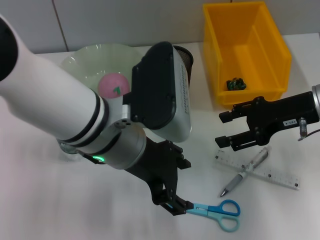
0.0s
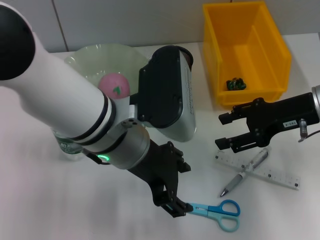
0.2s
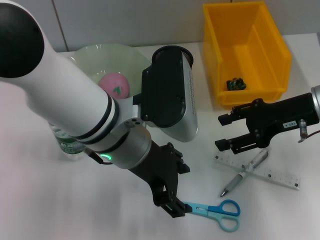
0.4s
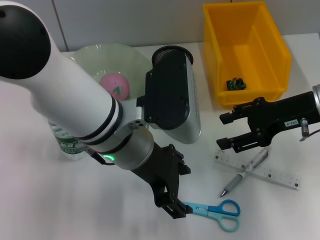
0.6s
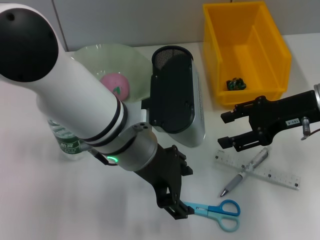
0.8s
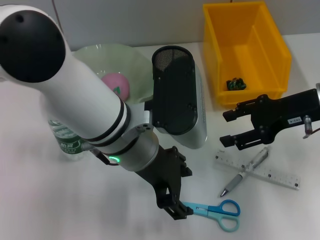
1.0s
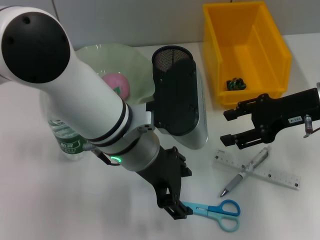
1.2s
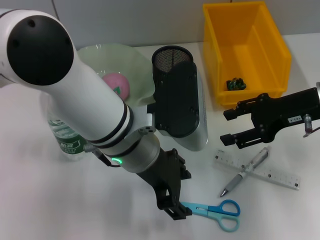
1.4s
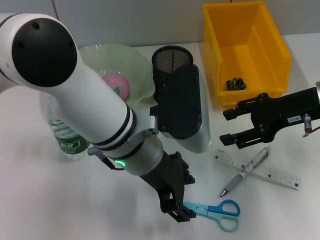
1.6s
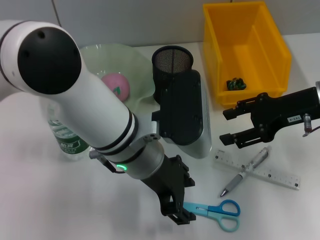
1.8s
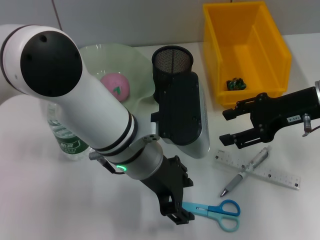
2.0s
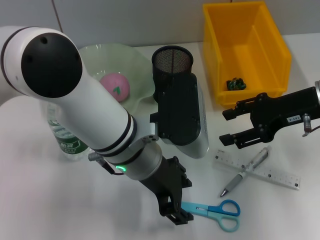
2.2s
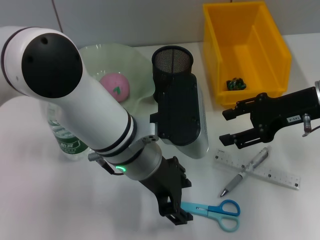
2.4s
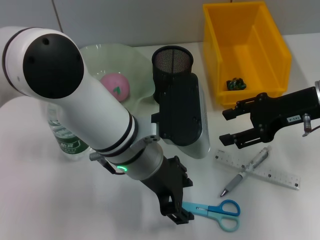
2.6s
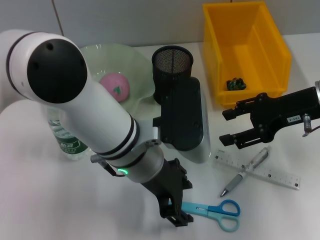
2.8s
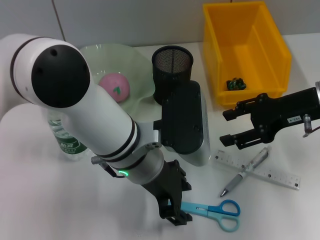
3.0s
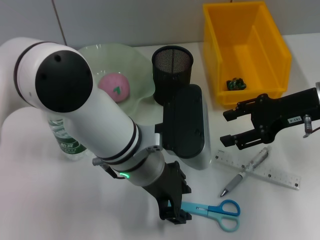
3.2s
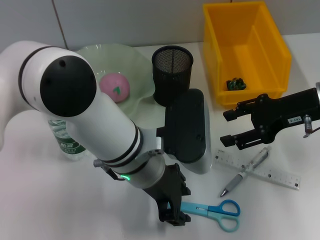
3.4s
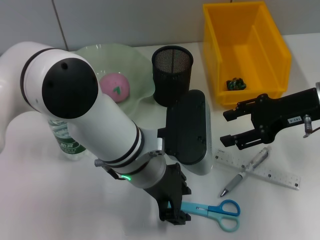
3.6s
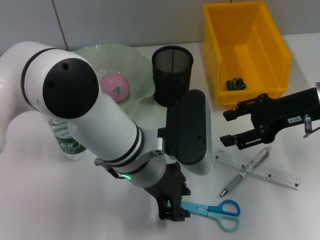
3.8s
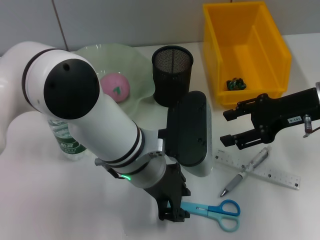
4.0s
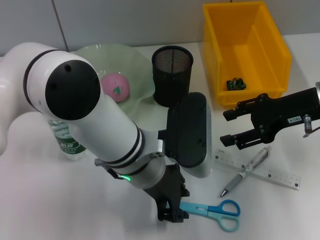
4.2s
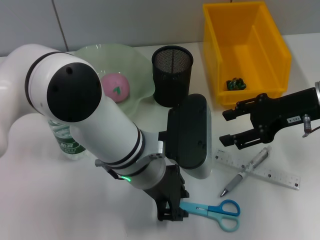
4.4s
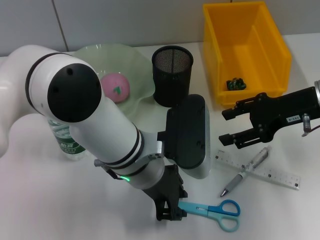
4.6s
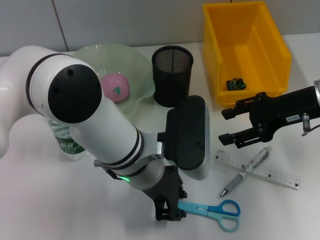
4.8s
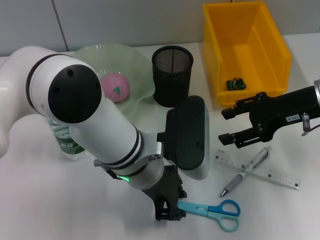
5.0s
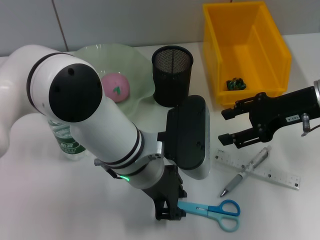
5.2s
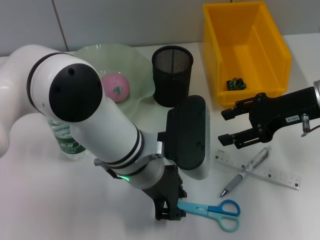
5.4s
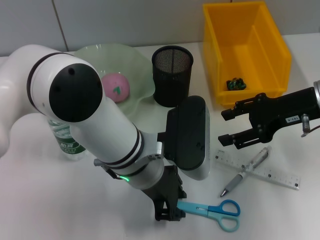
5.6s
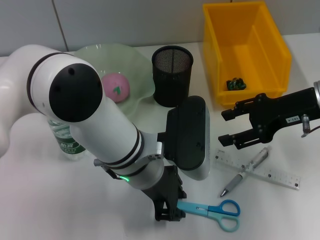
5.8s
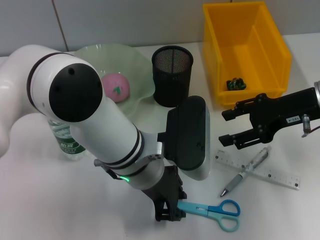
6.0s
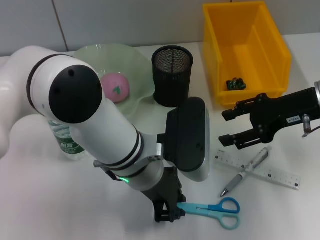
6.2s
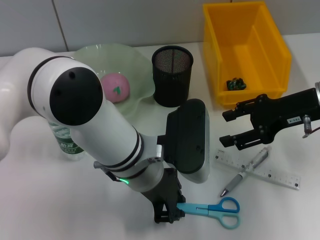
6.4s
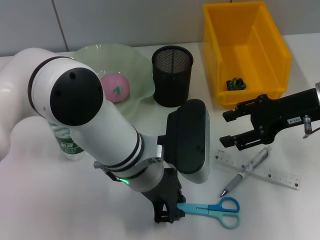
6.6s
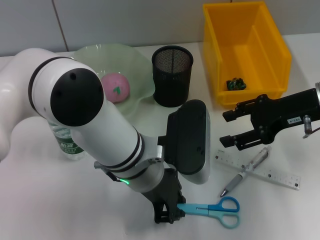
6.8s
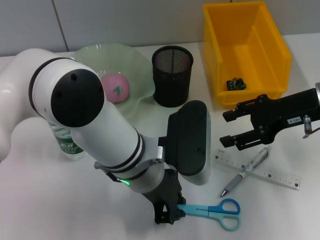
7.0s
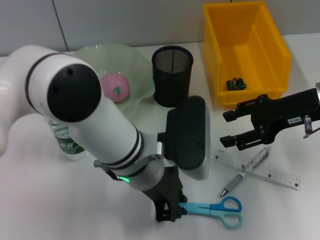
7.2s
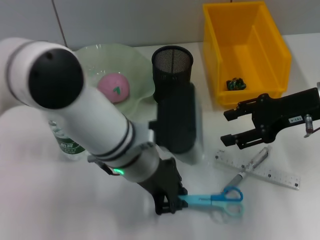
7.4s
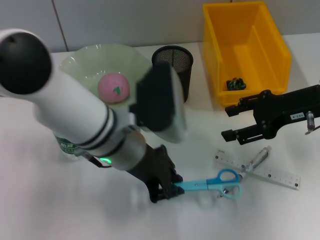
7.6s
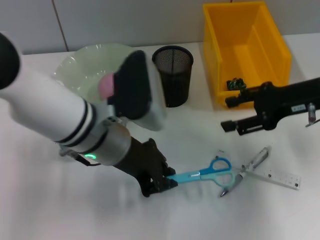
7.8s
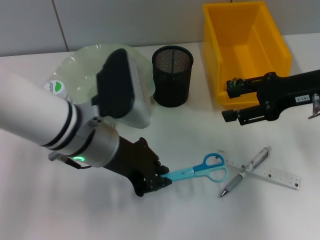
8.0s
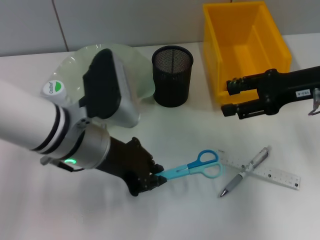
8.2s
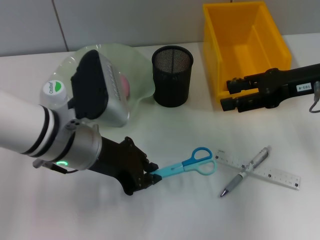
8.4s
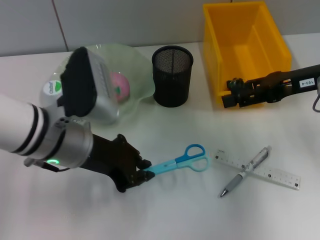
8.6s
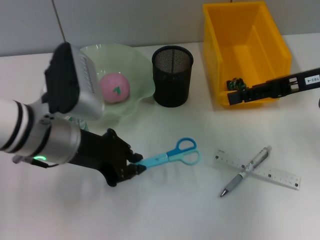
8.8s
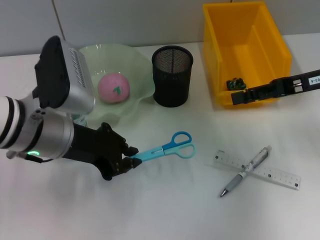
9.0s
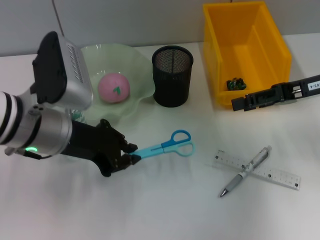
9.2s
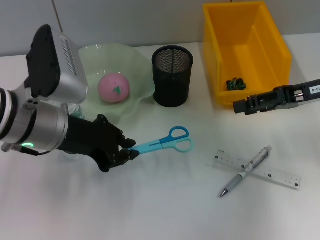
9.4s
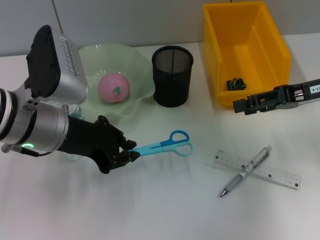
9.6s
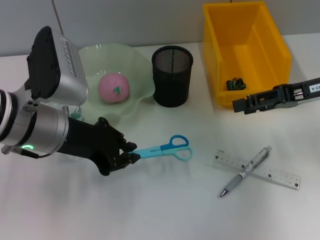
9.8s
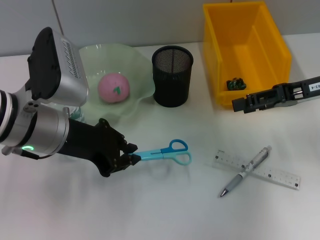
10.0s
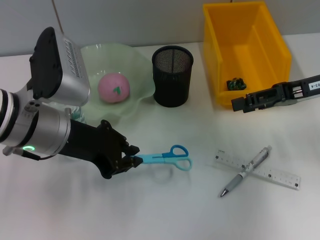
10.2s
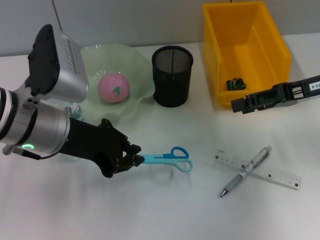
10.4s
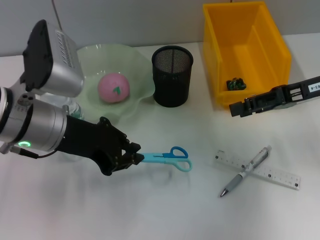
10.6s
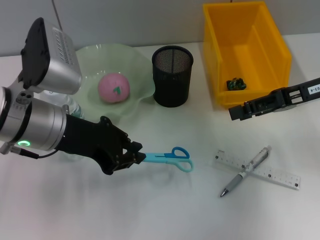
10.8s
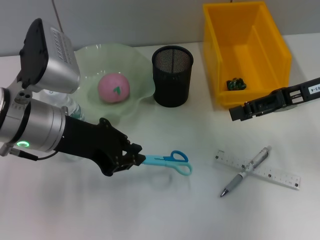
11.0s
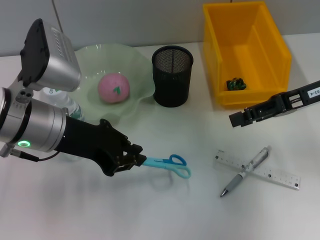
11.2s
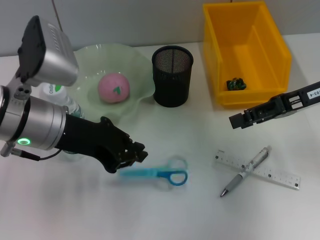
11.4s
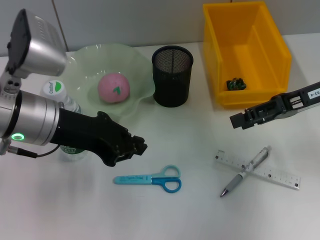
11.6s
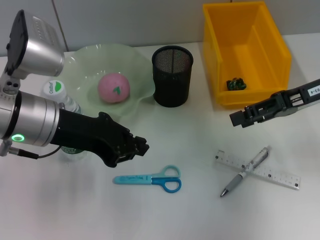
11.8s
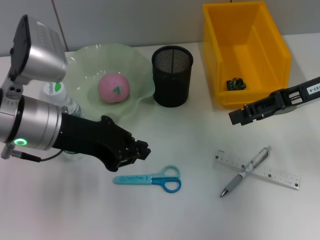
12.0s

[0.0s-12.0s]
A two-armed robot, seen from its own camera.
1.6s to 3.0s: The grippers make only small movements.
3.0s to 4.4s: Both grippers stay about where they are.
4.4s to 6.0s: Neither gripper changes place.
7.6s to 9.0s: The left gripper shifts some 10 cm to the left.
9.0s to 12.0s: The grippers stay close to where they were, moving slightly.

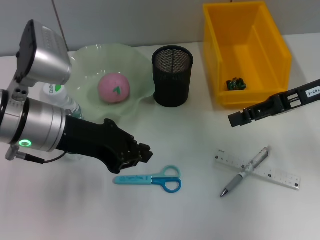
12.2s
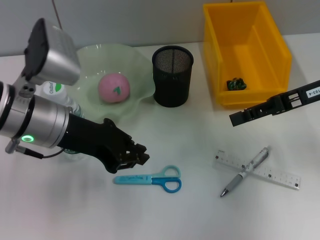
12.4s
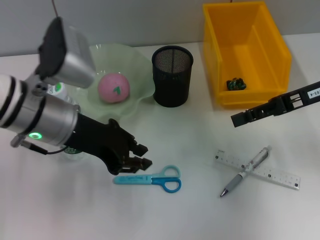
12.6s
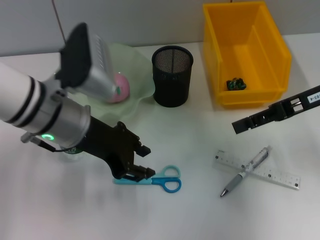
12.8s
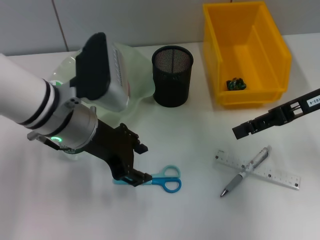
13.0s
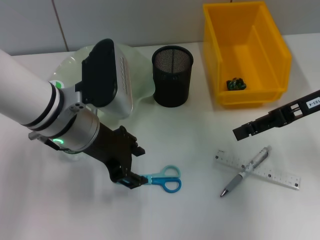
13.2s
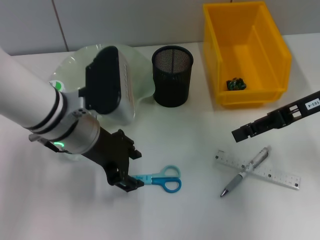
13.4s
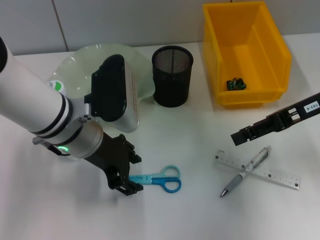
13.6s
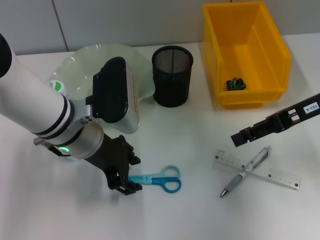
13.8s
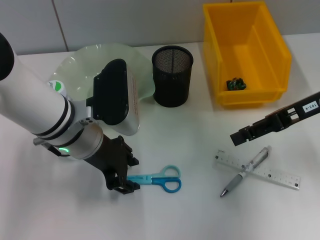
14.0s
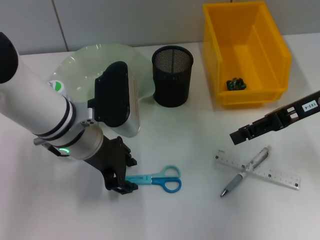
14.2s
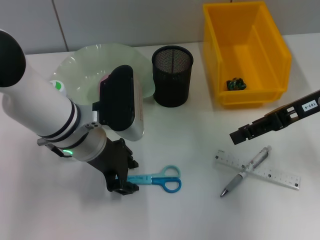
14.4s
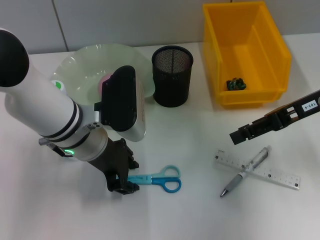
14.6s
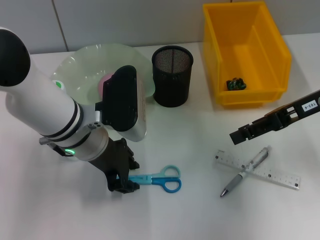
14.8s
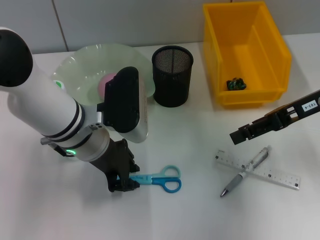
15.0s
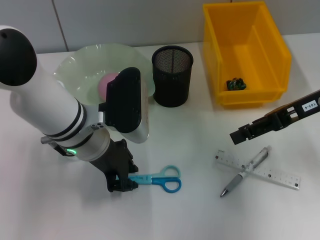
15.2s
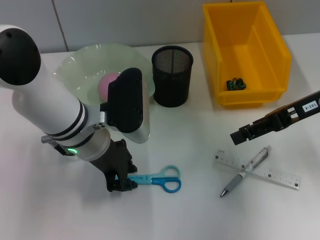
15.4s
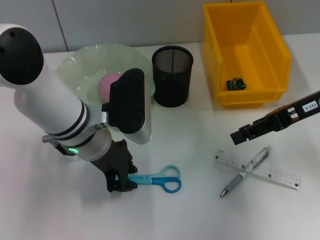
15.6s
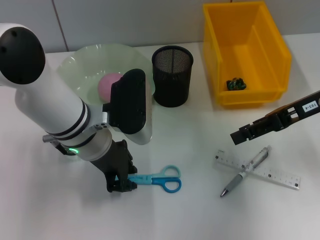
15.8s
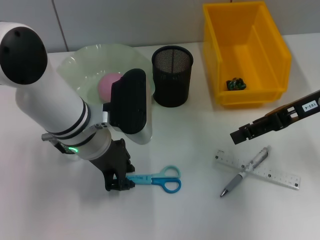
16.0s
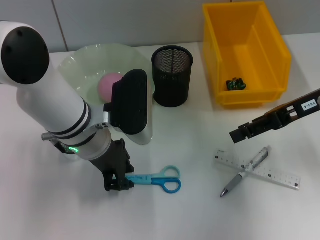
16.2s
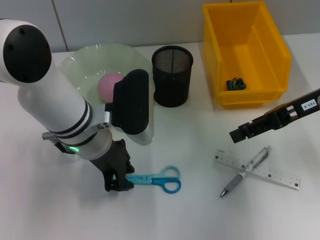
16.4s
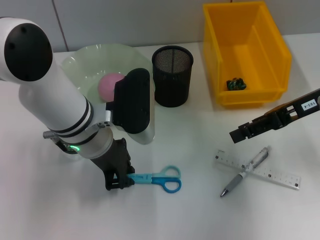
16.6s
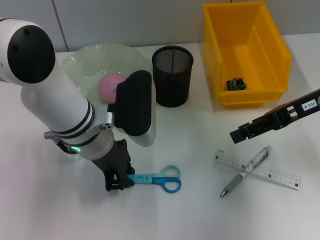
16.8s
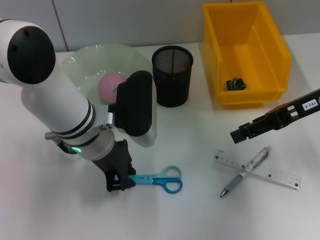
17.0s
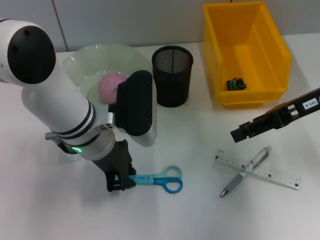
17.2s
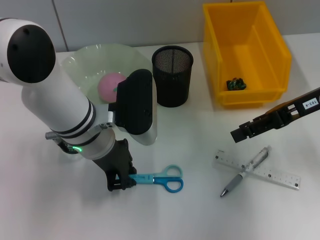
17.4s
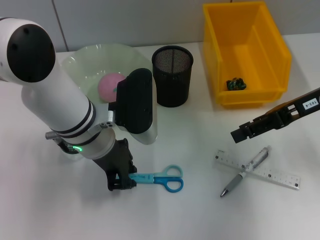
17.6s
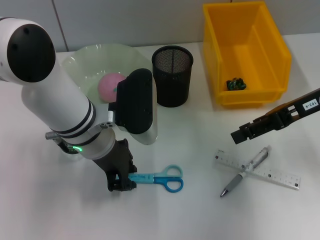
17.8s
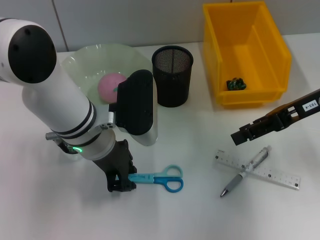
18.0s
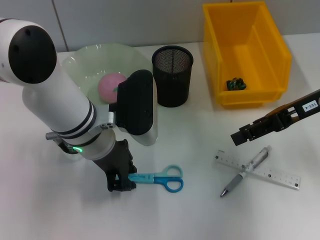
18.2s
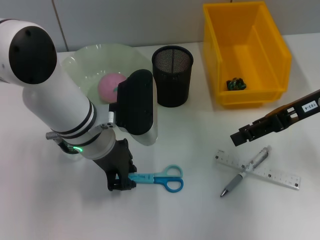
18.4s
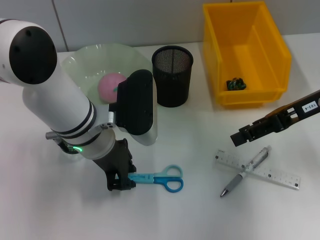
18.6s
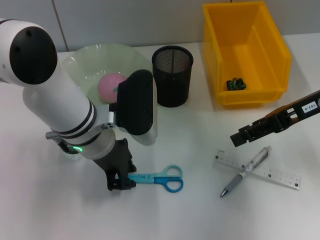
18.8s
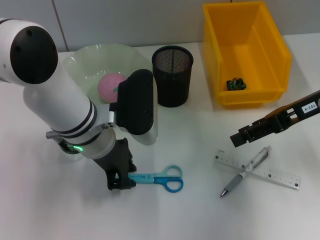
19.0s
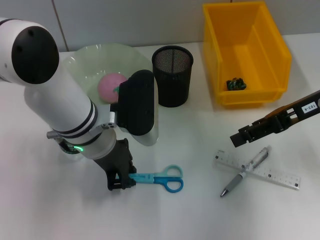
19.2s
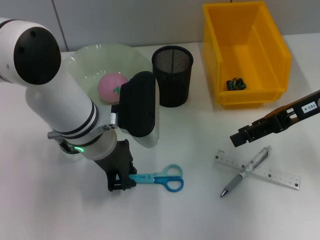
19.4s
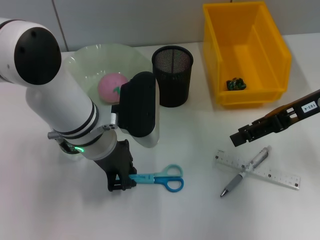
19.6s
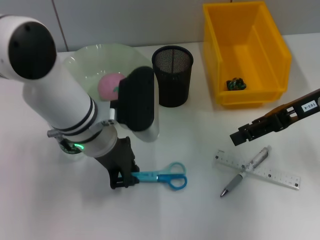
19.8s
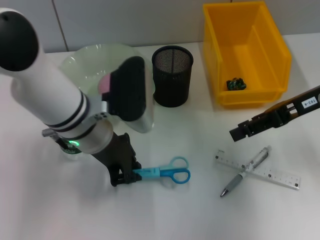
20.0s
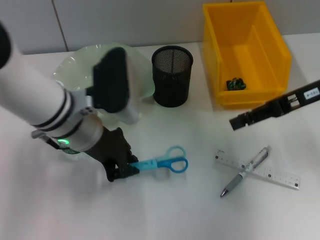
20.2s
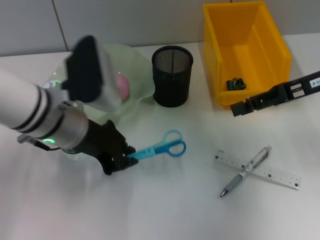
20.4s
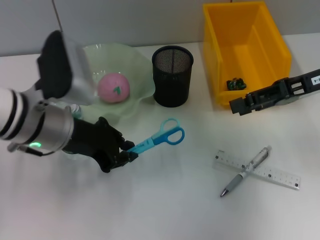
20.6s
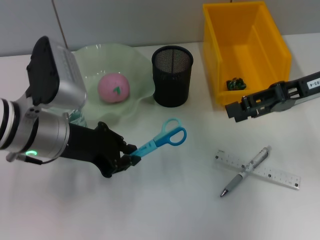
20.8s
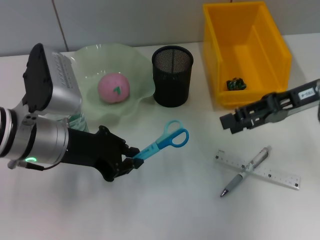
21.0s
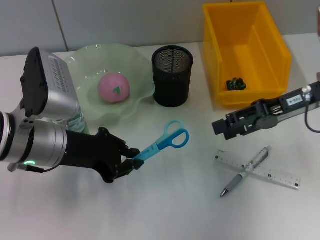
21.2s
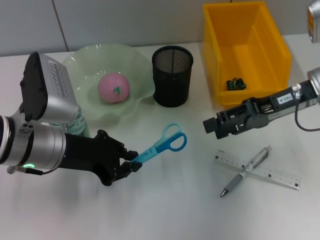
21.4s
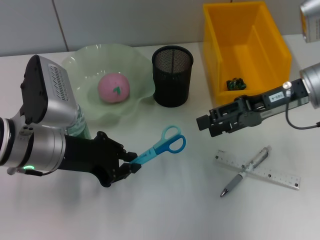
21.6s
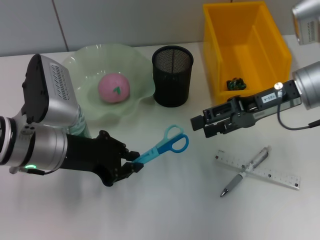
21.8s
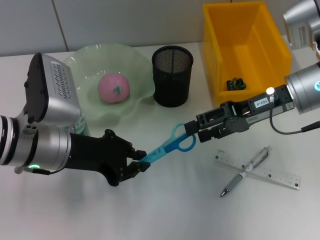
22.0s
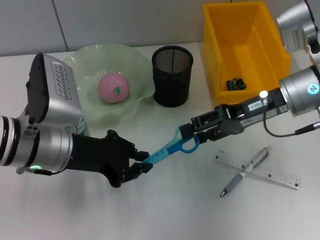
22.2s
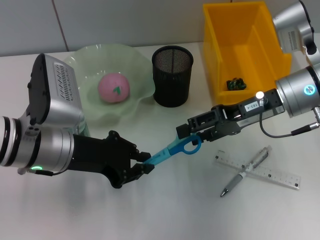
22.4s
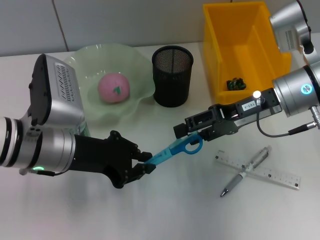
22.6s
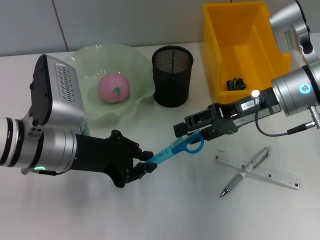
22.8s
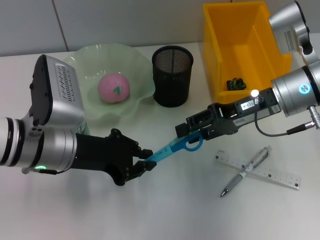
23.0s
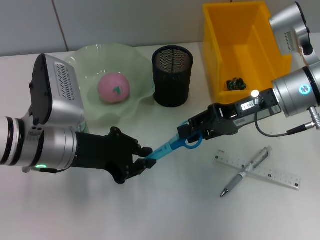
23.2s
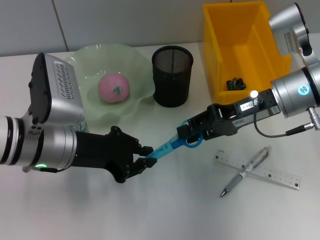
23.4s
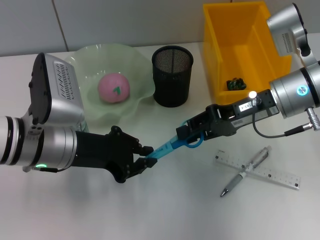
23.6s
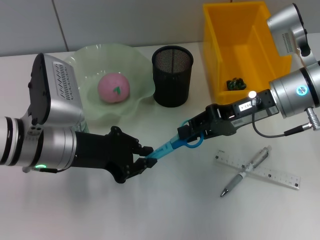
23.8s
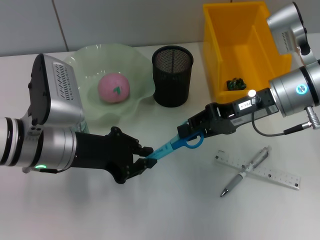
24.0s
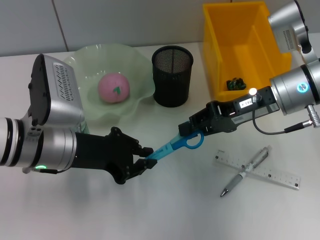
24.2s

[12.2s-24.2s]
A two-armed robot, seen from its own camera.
Step, 12.2s to 19.4s: Grab the blue scissors with the left hand.
12.2s to 13.8s: The left gripper moves to the right, some 5 cm, and opens.
13.8s to 15.2s: The left gripper closes up.
15.2s to 16.6s: Both grippers stay put.
16.6s to 19.8s: The two grippers keep their place.
19.8s to 21.2s: The left gripper travels to the left by roughly 10 cm.
21.2s to 22.6s: The right gripper is displaced to the left by approximately 5 cm.
22.6s to 24.2s: The right gripper closes up.
